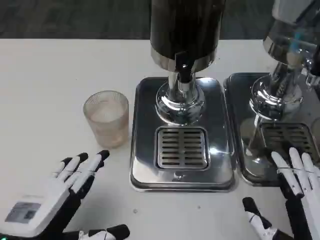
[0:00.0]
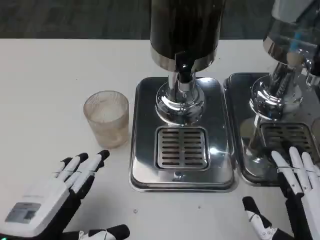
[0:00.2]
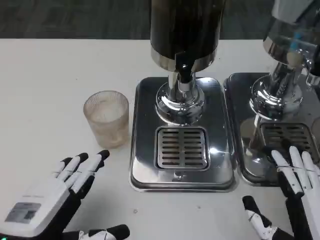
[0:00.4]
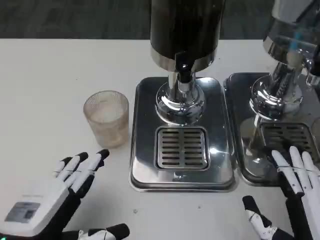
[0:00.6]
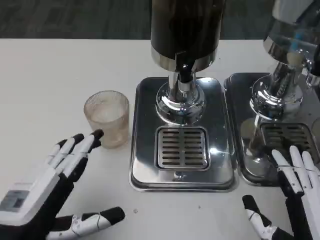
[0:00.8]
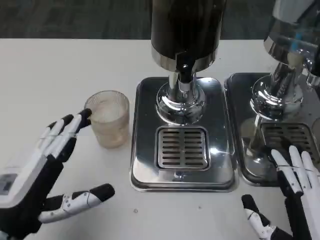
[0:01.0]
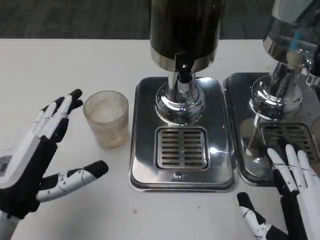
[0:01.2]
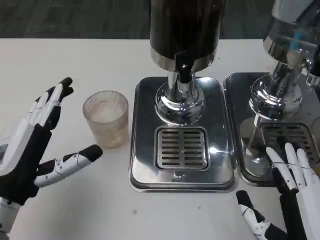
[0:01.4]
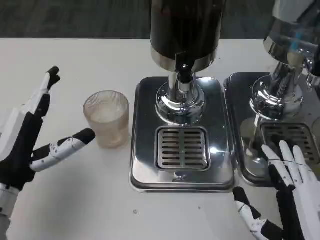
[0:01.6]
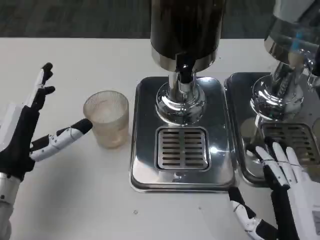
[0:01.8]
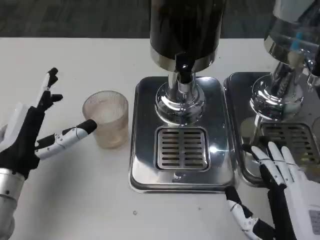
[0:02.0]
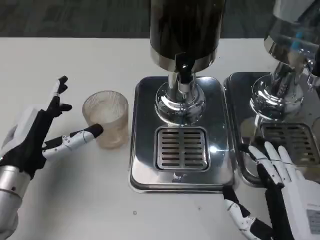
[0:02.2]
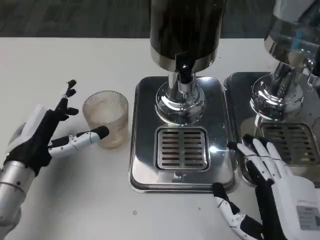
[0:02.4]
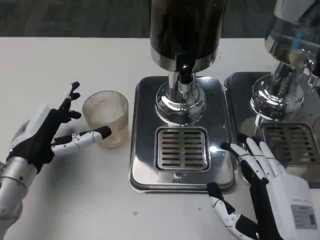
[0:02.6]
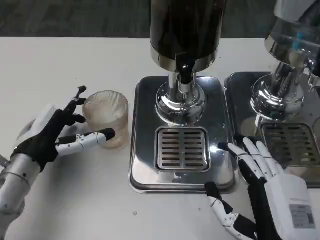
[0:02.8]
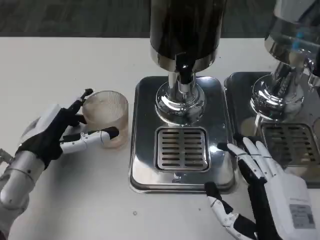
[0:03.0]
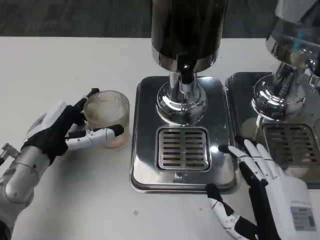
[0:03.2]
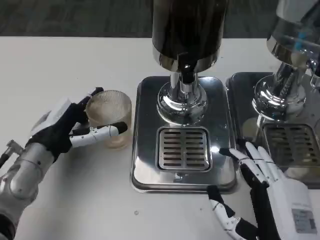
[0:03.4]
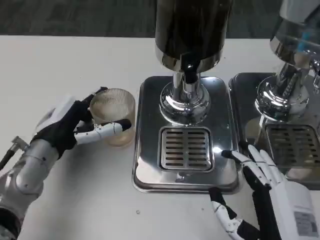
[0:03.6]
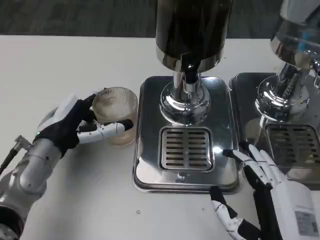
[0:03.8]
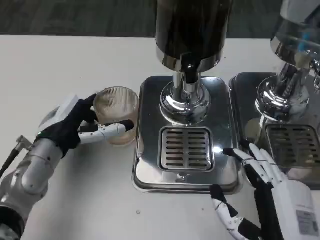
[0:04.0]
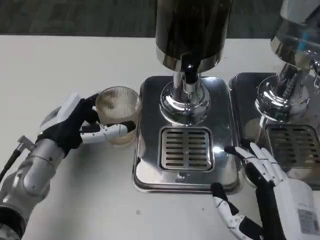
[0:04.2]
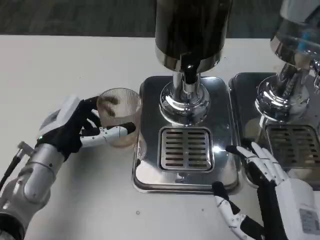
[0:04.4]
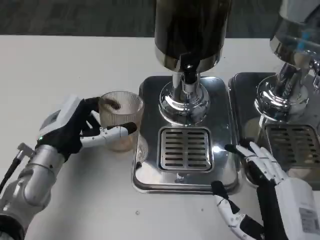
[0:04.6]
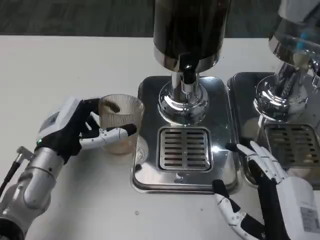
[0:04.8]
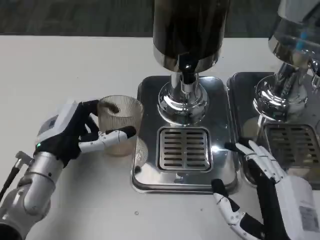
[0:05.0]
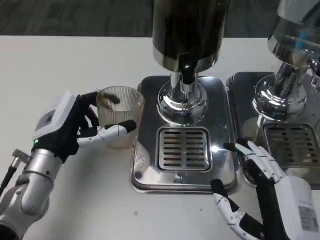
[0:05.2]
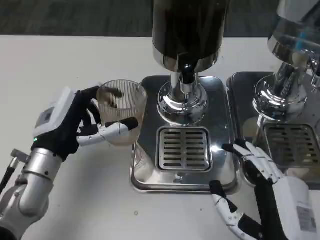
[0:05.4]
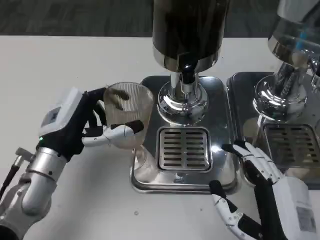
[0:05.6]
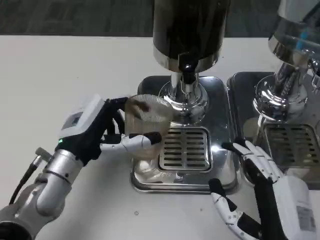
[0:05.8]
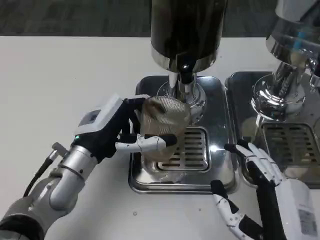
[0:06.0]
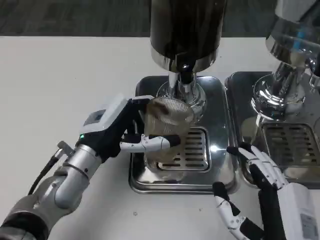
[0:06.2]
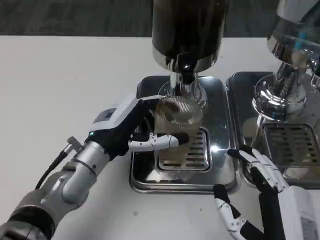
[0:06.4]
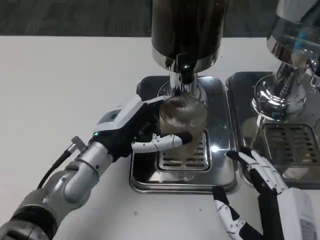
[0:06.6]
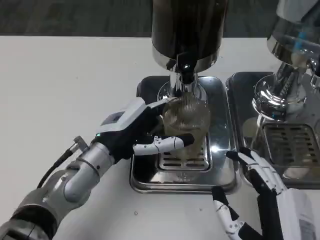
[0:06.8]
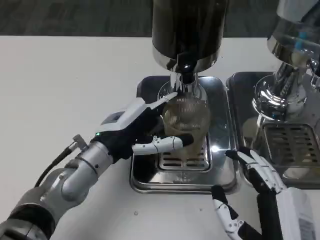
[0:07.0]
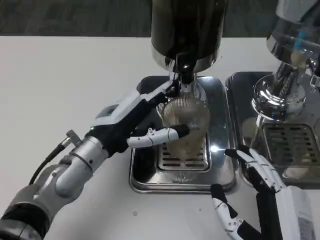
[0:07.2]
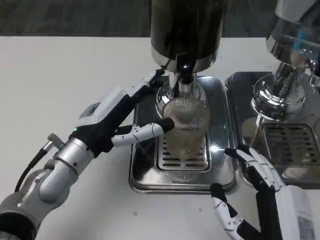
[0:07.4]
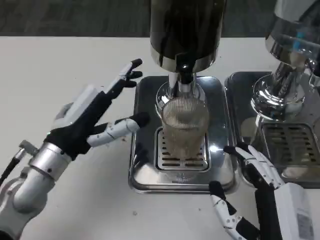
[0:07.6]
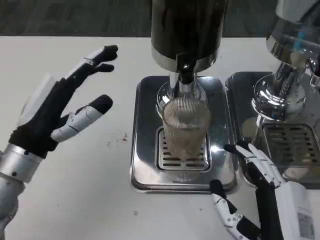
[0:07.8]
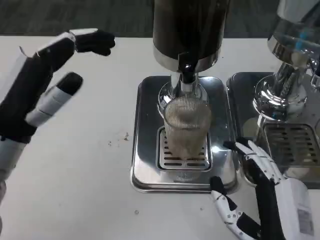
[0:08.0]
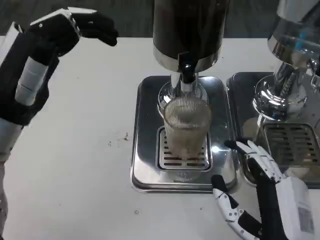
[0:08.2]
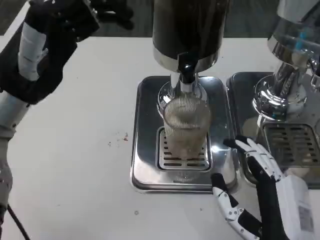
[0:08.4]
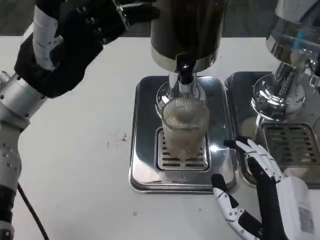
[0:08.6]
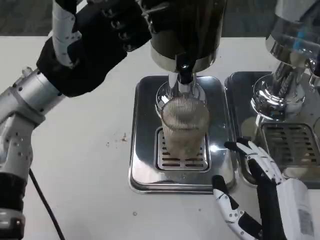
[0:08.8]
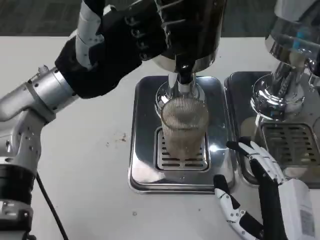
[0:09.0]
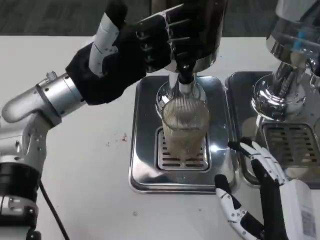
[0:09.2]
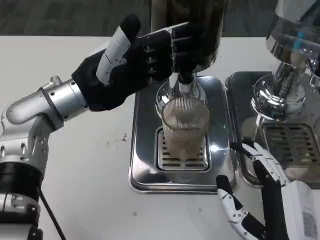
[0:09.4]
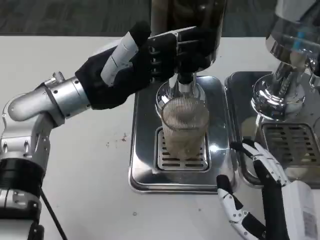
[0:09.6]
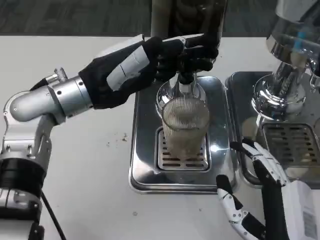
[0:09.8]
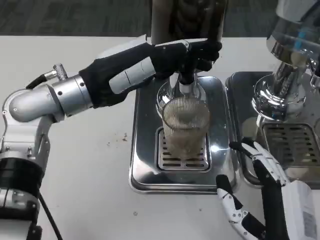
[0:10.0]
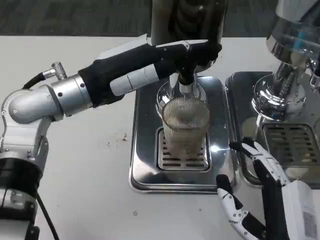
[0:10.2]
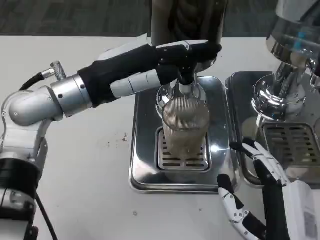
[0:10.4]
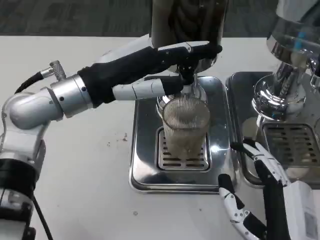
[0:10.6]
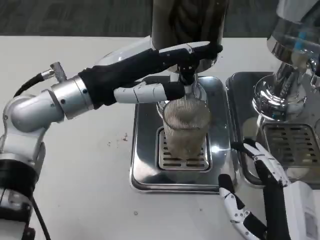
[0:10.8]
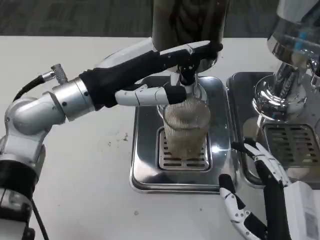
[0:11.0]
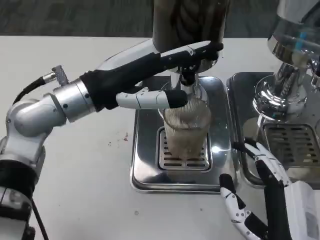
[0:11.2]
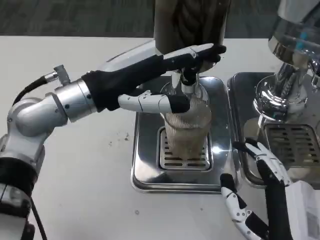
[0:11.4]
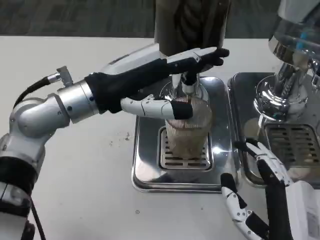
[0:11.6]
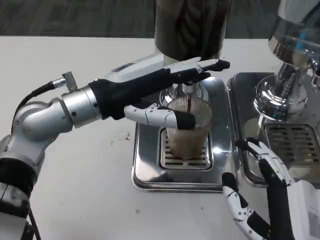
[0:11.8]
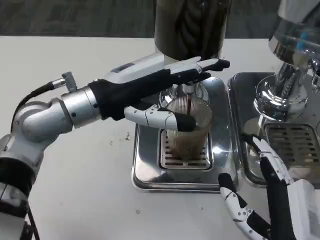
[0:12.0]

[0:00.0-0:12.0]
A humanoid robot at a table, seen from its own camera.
Task of the whole recording: Grasp the cup under the faucet to collect the drink, then remove the cup.
0:00.0 to 0:01.6: The left hand is displaced forward by about 10 cm.
0:01.6 to 0:03.0: The left hand goes some 5 cm forward.
0:07.6 to 0:09.0: The left hand heads upward and forward, covering about 10 cm.

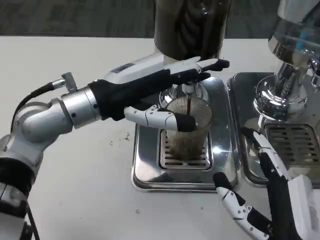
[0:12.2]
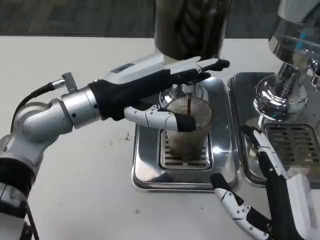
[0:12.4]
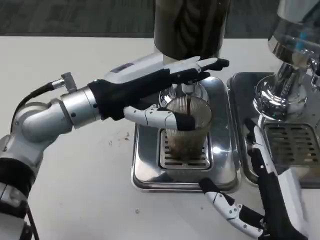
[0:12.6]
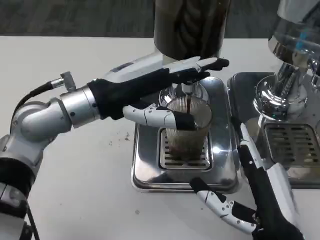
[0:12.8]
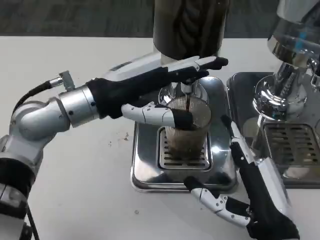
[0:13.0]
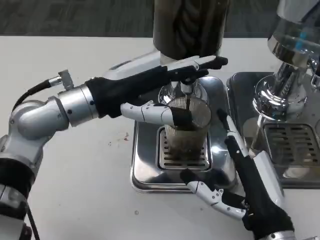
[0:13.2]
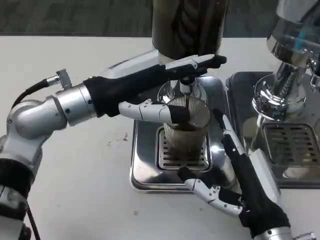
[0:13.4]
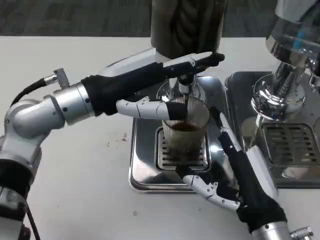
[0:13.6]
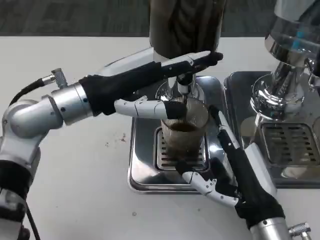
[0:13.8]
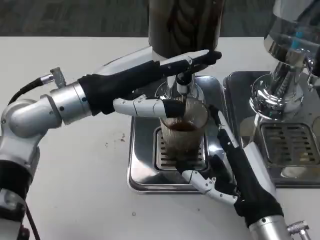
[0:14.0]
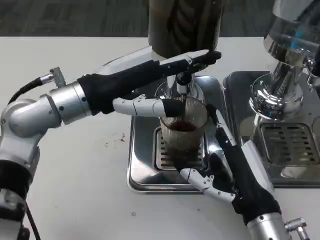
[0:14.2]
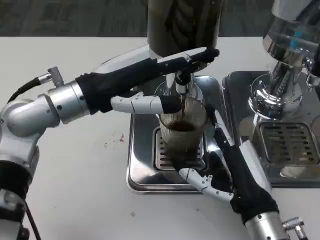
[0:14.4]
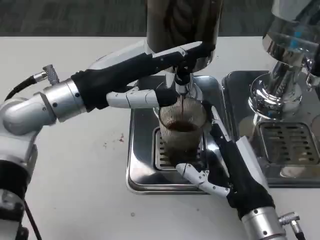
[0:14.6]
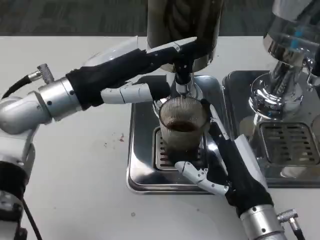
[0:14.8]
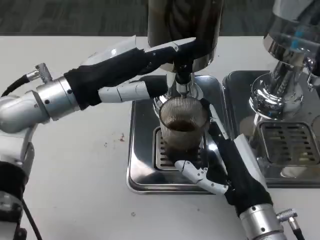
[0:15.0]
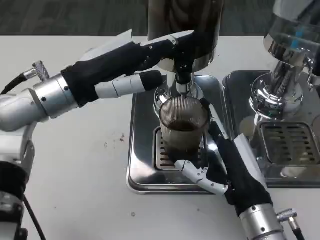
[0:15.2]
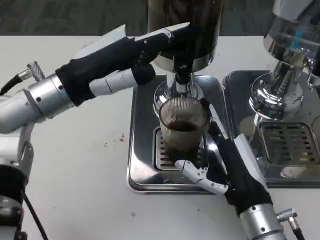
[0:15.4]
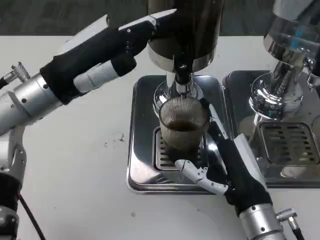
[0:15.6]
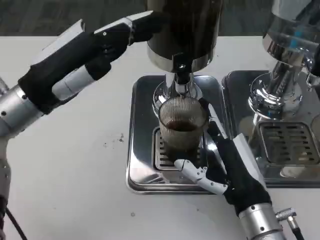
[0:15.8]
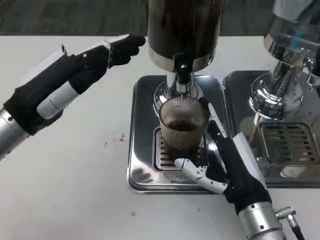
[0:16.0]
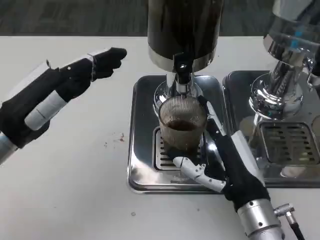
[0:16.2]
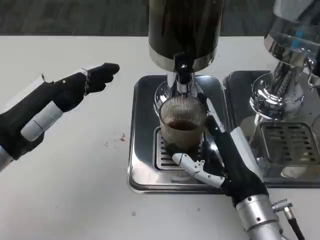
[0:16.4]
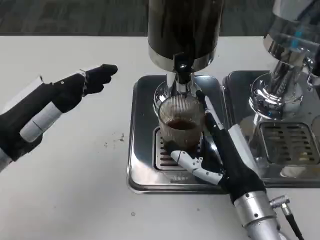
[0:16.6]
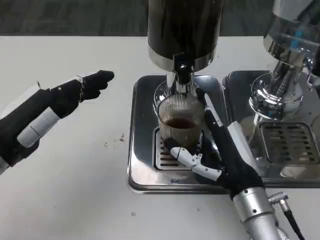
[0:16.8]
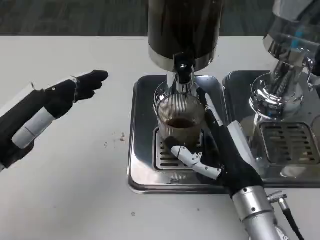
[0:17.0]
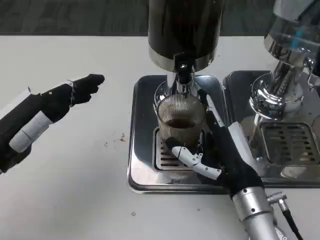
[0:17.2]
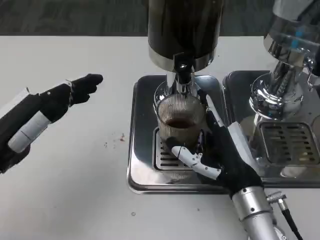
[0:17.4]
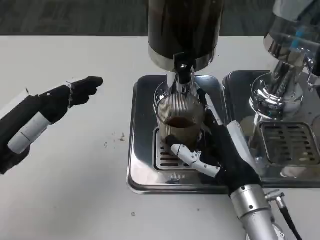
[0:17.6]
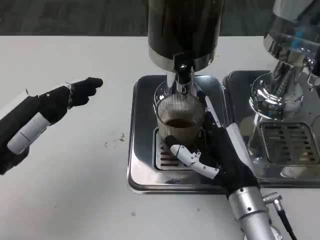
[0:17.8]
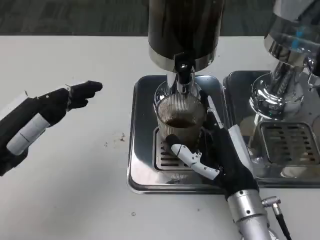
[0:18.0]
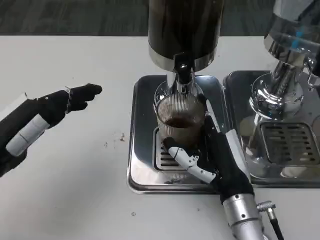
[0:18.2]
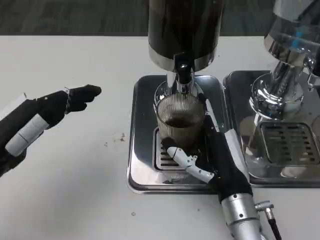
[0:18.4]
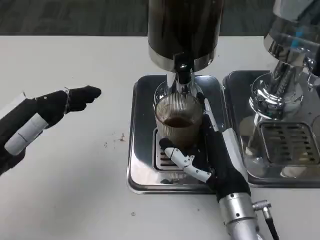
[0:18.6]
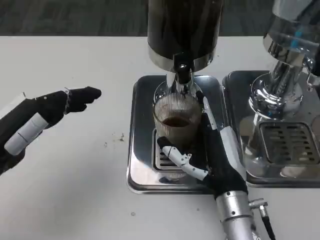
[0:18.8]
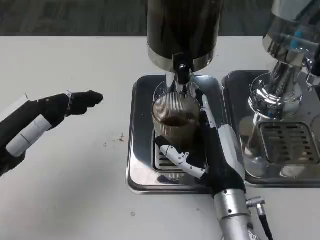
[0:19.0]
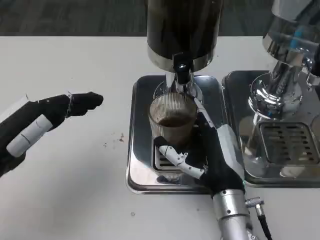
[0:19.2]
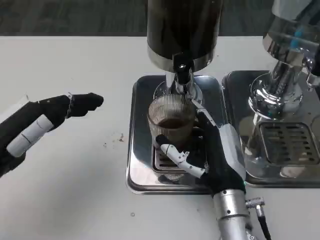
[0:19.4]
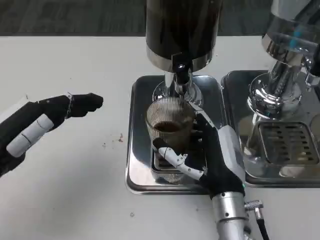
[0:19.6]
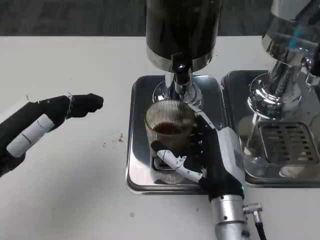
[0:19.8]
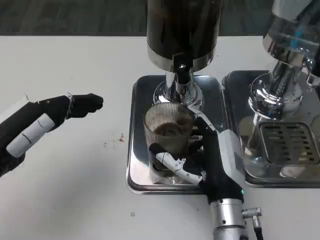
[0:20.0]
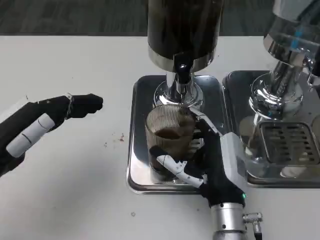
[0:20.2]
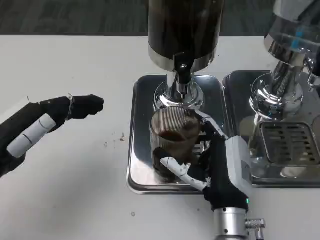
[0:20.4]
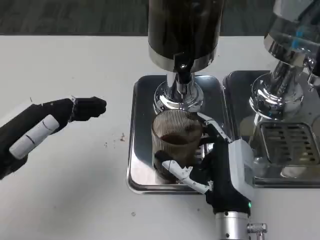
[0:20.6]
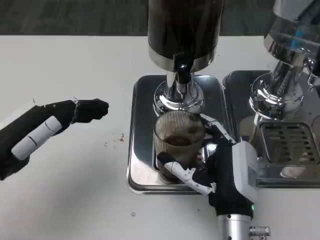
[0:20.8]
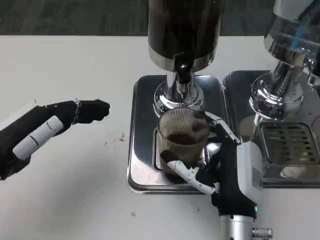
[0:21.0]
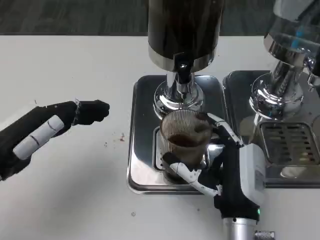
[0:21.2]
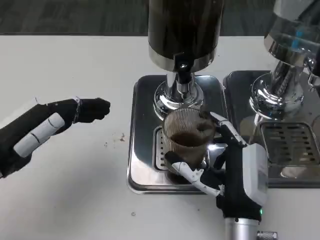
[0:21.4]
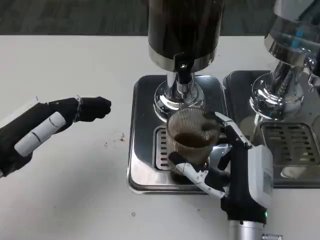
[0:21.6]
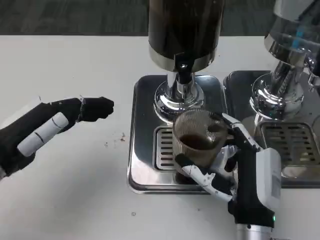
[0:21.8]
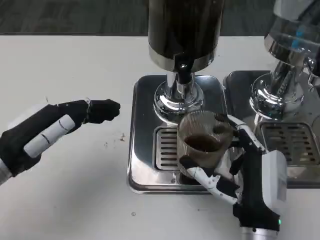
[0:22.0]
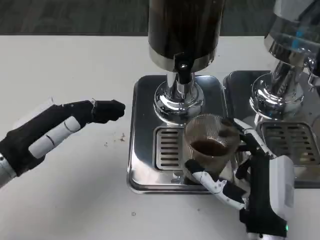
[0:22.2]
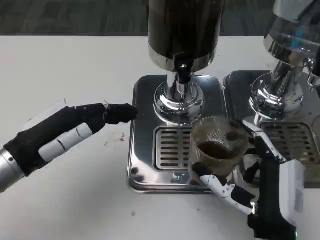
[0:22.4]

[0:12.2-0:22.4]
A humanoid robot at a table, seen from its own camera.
Task of the whole recording: Grasp the cup under the faucet to collect the drink, then remove the cup.
0:12.2 to 0:13.6: The right hand heads forward, covering approximately 5 cm.
0:15.2 to 0:16.6: The left hand travels to the left, backward and downward by about 10 cm.
0:16.6 to 0:19.4: The hands stay close to where they were, moving slightly.
0:19.4 to 0:21.0: The hands stay close to where they were, moving slightly.
0:21.0 to 0:22.4: The right hand moves some 5 cm.
